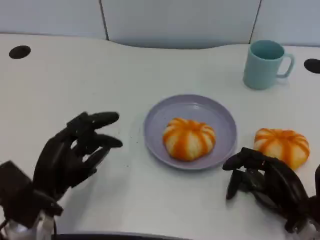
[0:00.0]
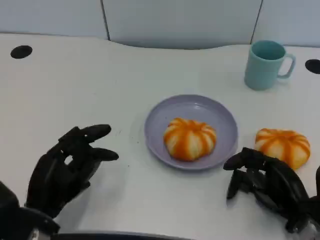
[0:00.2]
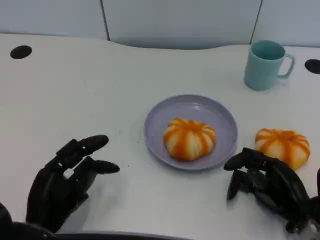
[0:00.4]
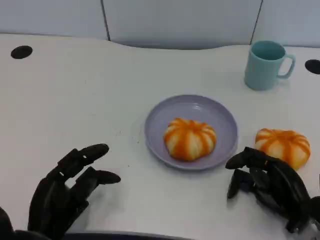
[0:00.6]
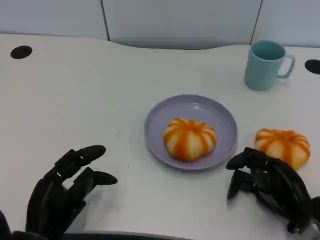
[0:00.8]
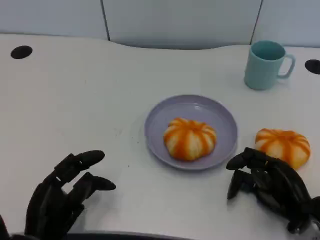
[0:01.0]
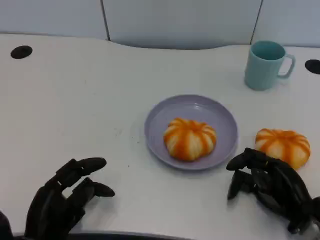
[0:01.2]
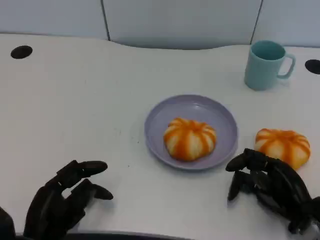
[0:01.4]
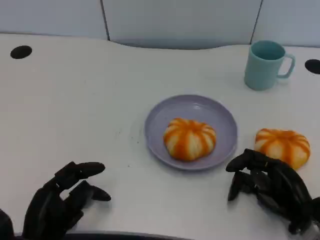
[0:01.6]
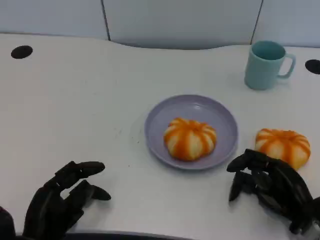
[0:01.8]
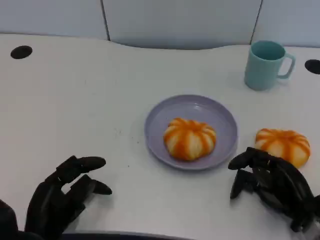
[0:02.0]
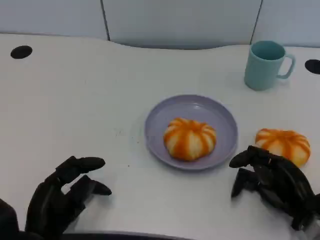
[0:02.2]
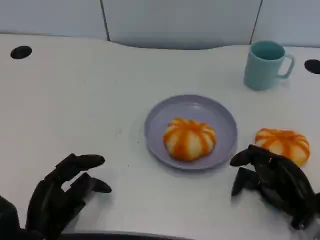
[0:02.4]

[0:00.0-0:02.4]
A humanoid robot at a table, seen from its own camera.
Task of the whole recording: Grasp the bread from the table and place it into the plate.
0:00.0 to 0:01.2: The left hand shifts by approximately 5 cm.
0:01.2 to 0:02.4: Both hands stay put.

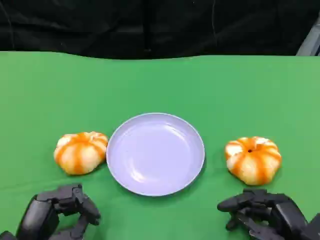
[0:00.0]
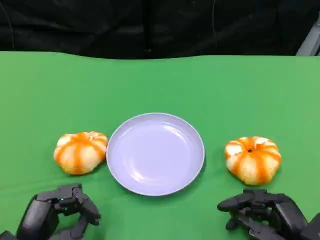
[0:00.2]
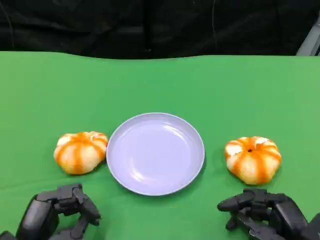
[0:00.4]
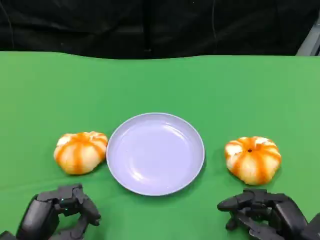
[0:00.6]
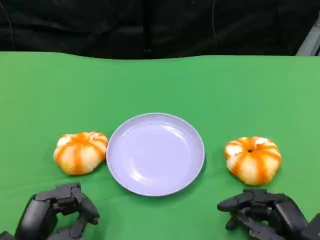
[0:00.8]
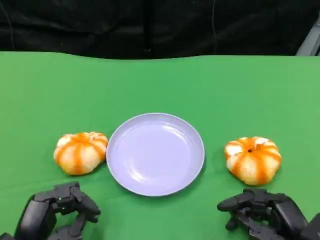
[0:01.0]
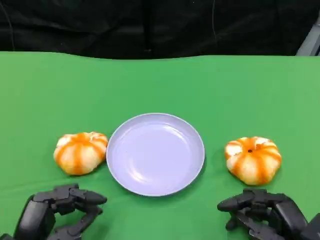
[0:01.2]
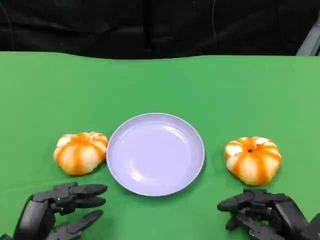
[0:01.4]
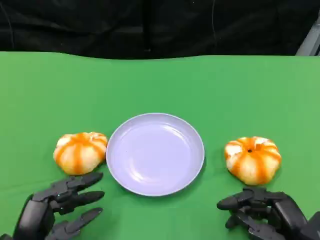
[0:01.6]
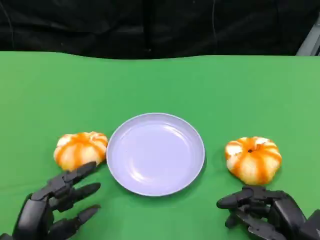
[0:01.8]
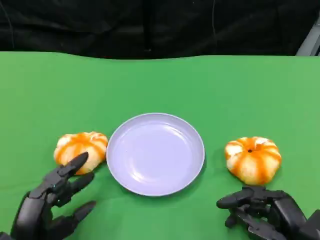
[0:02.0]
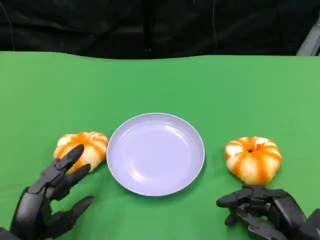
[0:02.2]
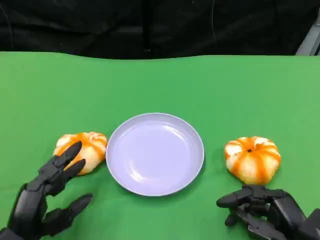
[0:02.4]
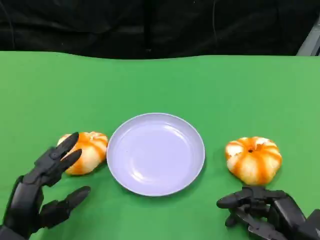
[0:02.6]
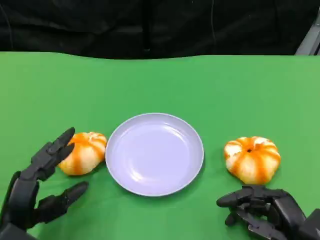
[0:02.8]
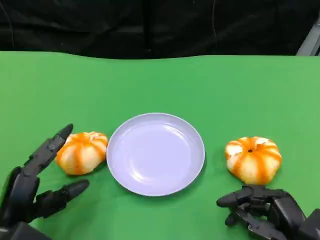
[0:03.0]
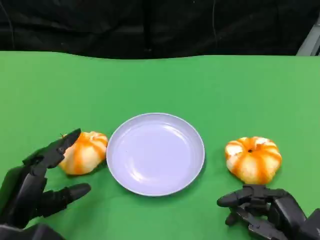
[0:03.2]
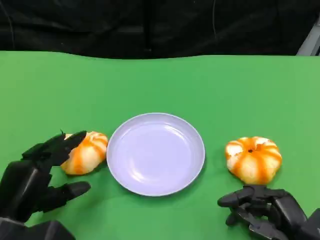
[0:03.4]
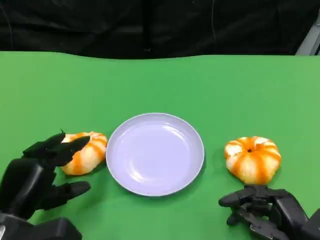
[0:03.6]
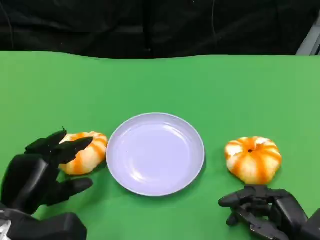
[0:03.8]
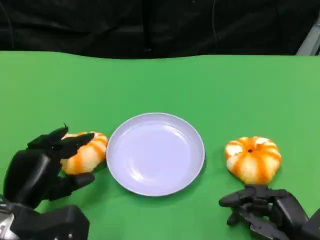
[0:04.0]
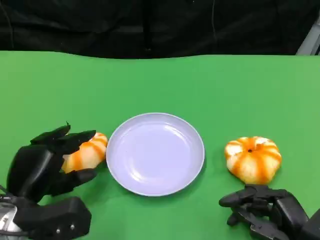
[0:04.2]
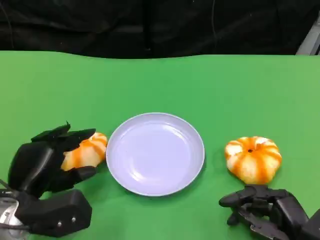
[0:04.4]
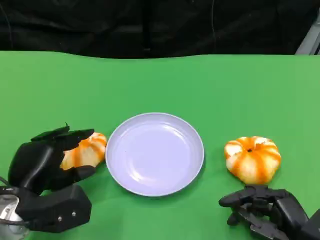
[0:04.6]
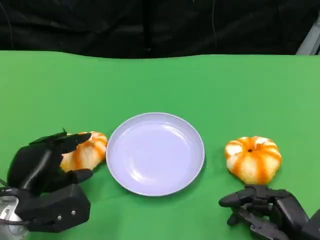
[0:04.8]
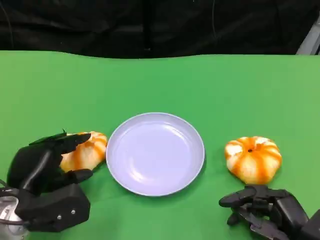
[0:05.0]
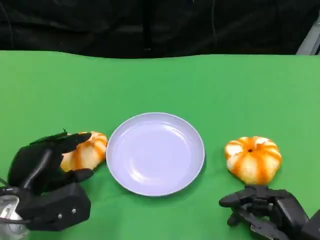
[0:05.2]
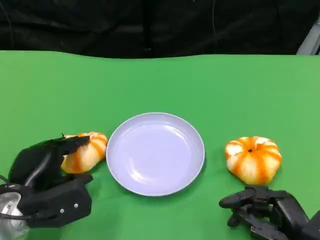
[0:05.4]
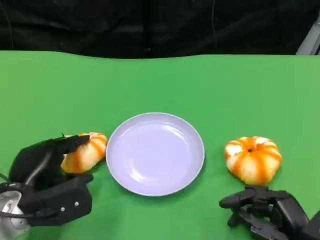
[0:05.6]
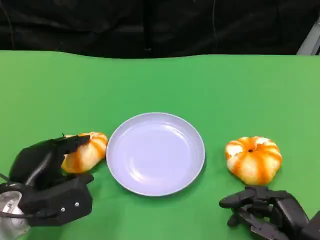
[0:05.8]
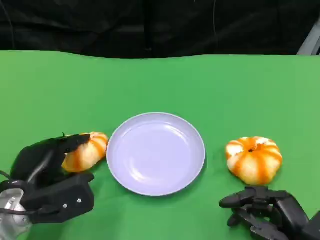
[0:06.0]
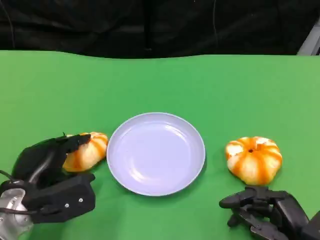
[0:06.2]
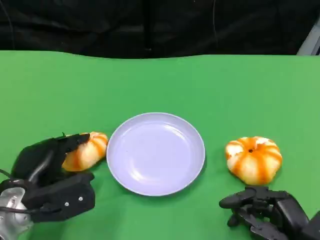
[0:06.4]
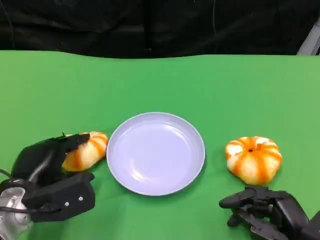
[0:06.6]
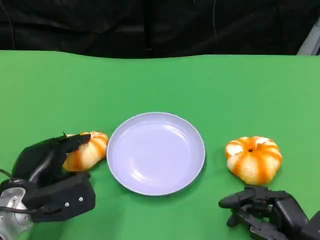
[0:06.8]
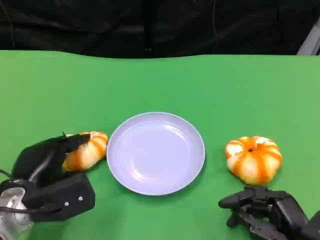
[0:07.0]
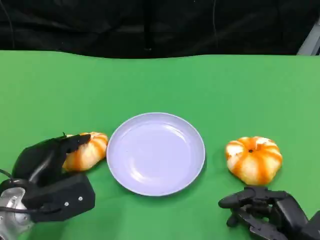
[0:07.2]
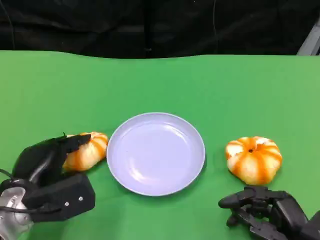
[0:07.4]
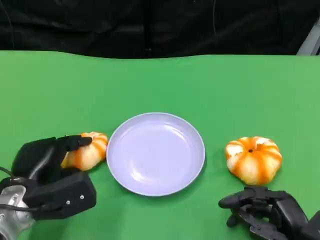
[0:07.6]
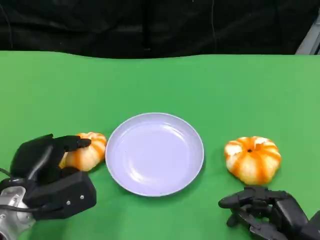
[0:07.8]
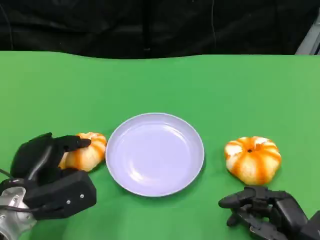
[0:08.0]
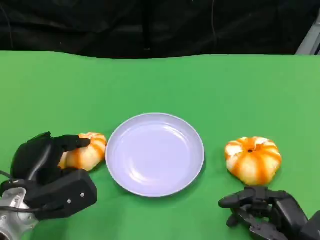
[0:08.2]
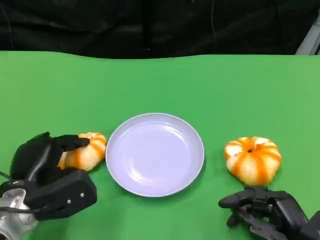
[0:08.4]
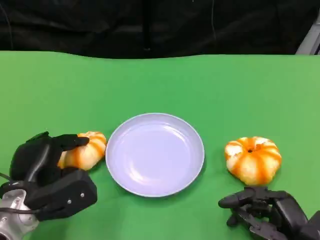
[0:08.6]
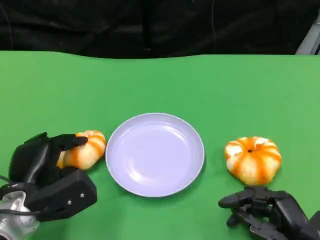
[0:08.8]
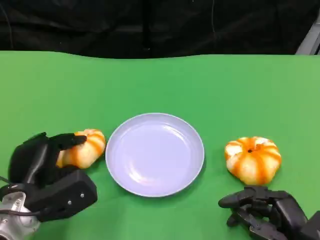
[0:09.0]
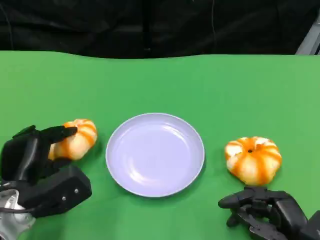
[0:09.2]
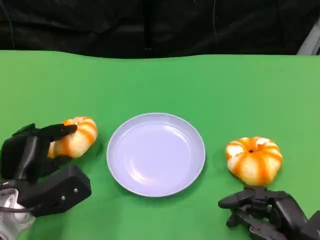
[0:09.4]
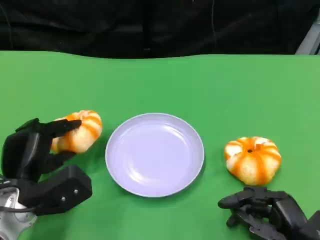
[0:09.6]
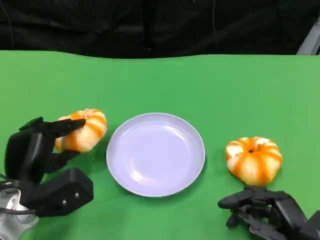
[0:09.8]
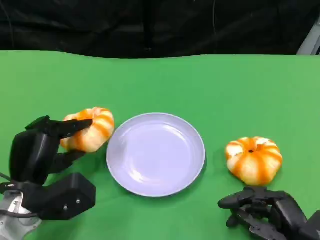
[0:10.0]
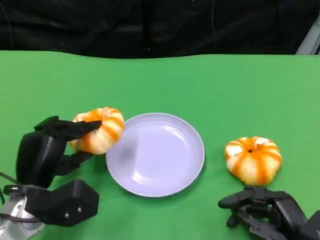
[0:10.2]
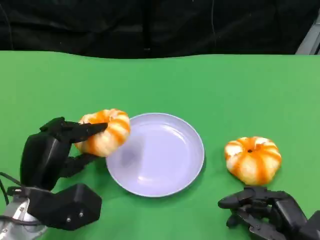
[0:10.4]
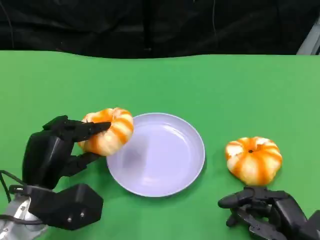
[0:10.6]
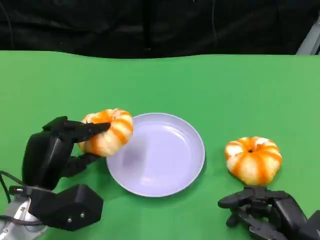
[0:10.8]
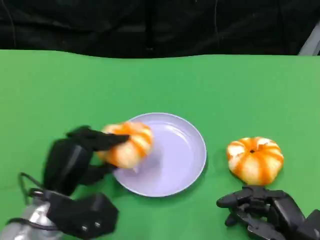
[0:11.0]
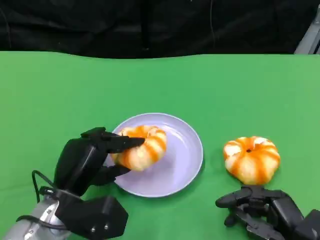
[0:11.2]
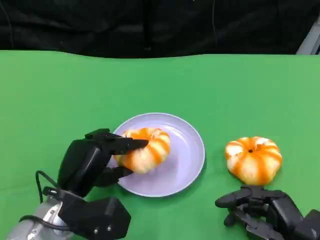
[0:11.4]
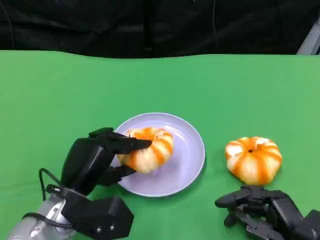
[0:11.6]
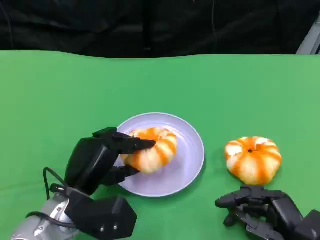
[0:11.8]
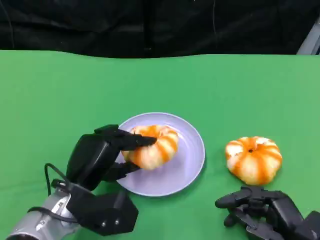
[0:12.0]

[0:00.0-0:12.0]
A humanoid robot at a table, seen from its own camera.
Task of the whole recording: Grasp the bread from the table and place it into the plate.
0:00.0 to 0:01.6: Neither hand changes place.
0:03.0 to 0:04.4: The left hand moves forward, some 5 cm.
0:04.4 to 0:06.0: The hands move only a little.
0:06.0 to 0:07.6: Neither hand changes place.
0:07.6 to 0:09.0: The hands move only a little.
0:09.0 to 0:10.4: The hands make only small movements.
0:10.4 to 0:12.0: The left hand goes approximately 5 cm to the right.

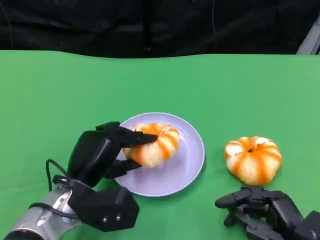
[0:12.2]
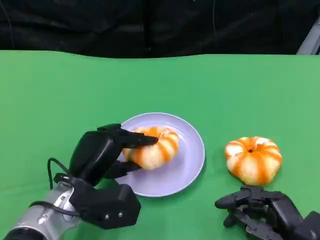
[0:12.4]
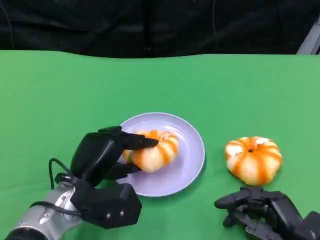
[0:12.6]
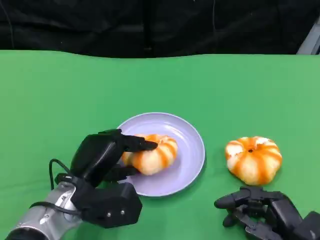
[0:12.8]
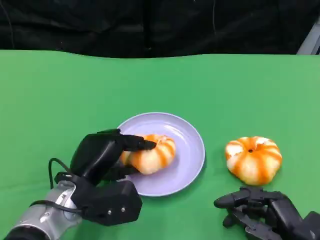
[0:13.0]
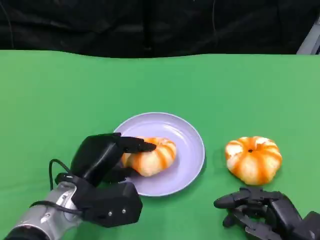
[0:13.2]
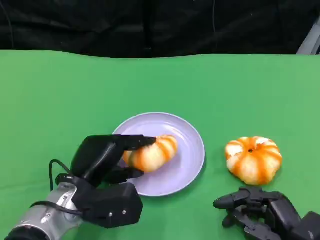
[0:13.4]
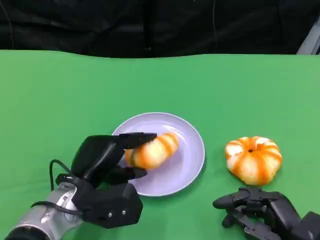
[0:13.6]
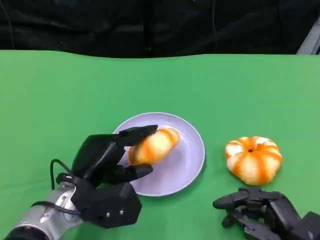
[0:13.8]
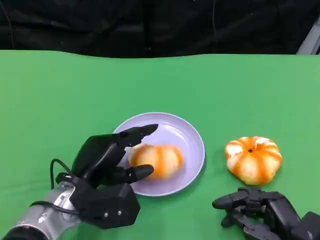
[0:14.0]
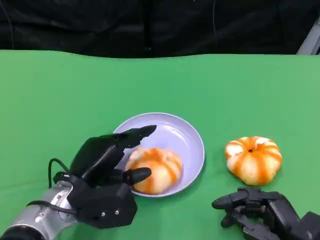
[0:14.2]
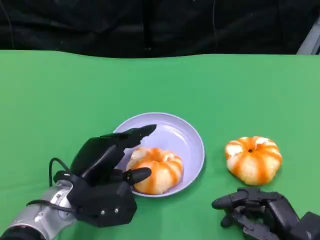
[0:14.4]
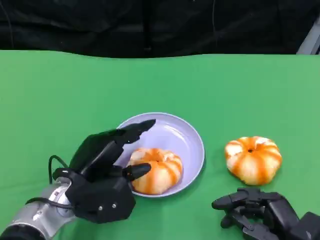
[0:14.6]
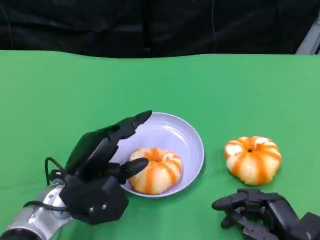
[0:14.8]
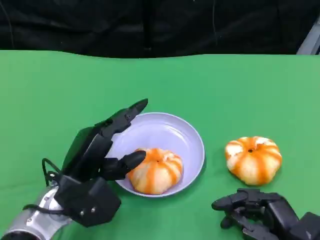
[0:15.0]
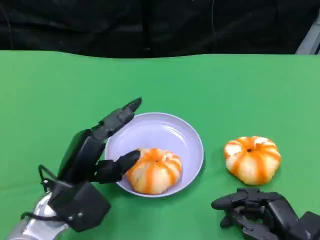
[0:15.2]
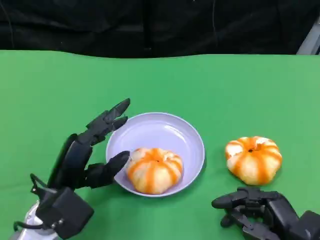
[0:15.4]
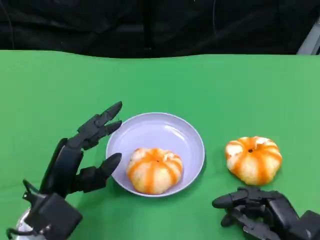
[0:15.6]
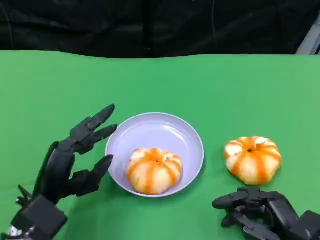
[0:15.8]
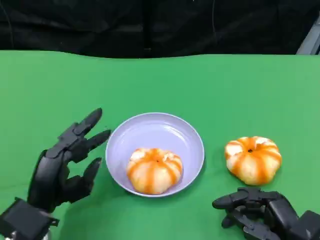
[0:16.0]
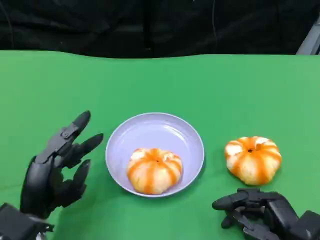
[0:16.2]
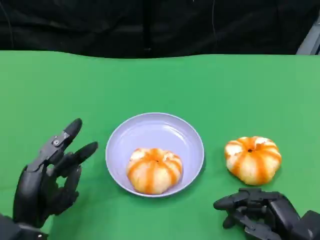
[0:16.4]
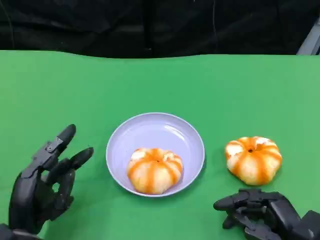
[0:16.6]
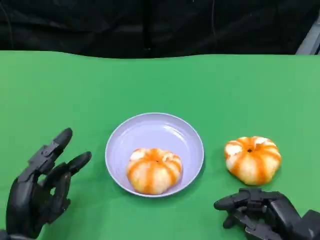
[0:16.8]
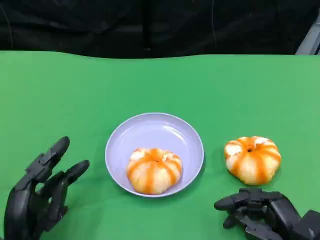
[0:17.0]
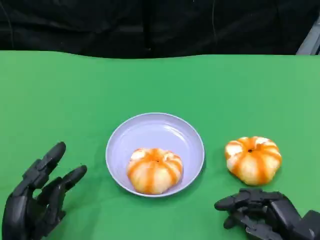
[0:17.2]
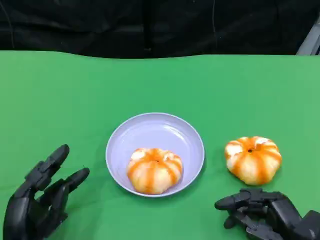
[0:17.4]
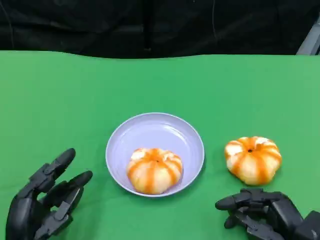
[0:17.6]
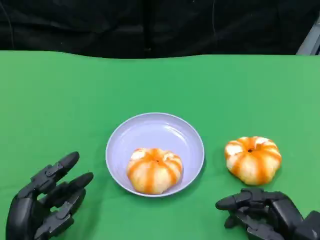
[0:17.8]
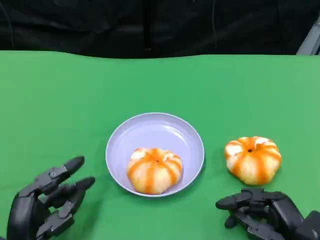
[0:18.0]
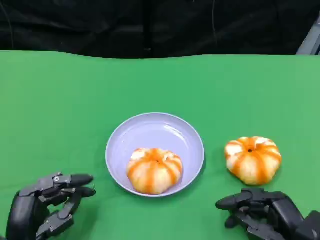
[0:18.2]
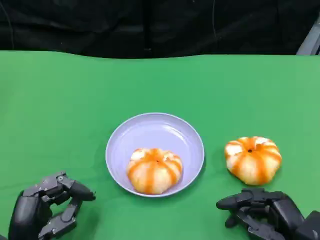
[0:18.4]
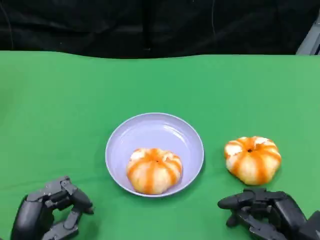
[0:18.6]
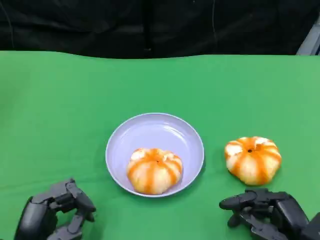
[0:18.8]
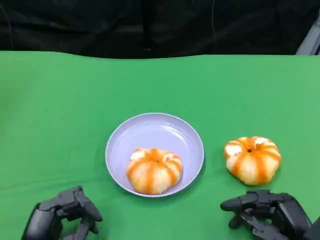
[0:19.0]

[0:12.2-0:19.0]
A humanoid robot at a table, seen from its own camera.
Task of the whole recording: Grasp the bread from the table and place it into the plate.
0:12.2 to 0:15.0: There are only small adjustments of the hands.
0:15.0 to 0:16.2: The left hand heads to the left, covering roughly 5 cm.
0:16.2 to 0:19.0: The hands stay close to where they were, moving slightly.

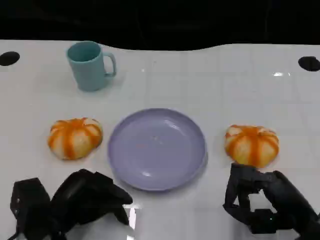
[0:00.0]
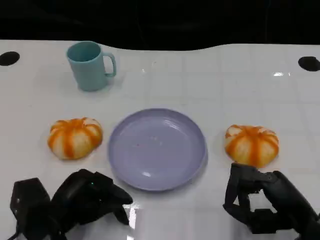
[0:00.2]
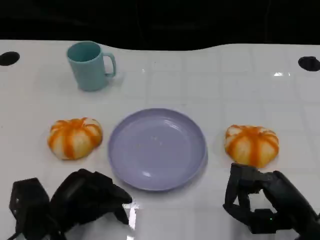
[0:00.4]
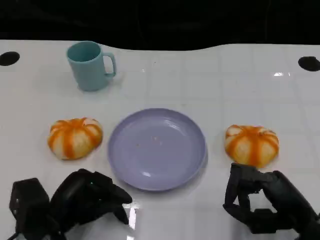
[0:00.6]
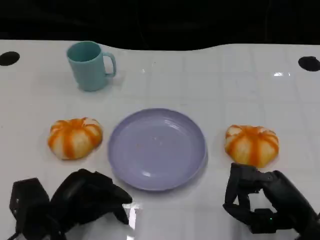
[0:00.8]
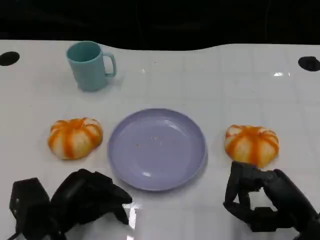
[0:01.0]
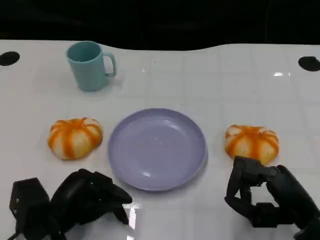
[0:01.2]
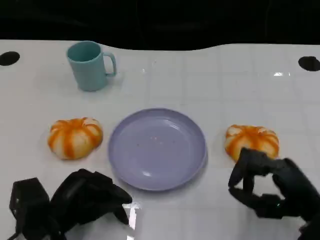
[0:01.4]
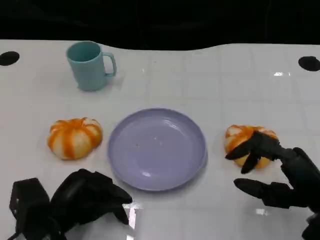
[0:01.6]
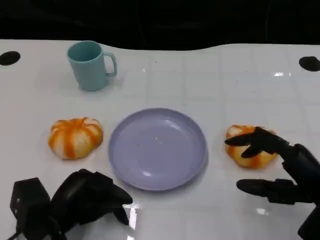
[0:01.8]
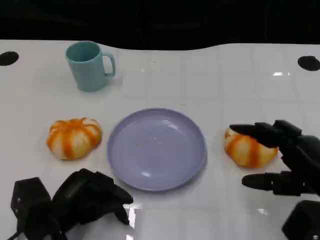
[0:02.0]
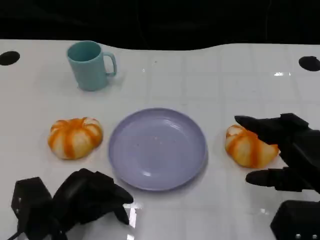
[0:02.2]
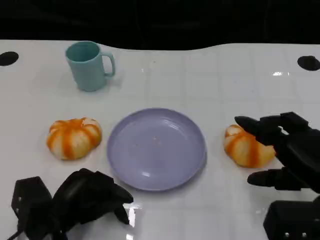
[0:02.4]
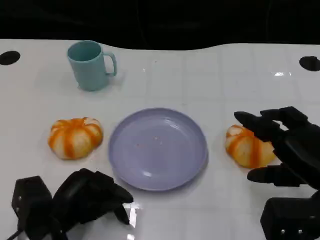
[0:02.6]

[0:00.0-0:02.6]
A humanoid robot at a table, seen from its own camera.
Task of the whole recording: Grasp the bread from the table and place it into the plate.
0:00.0 to 0:01.2: Both hands stay about where they are.
0:01.2 to 0:02.6: The right hand goes roughly 5 cm upward.
